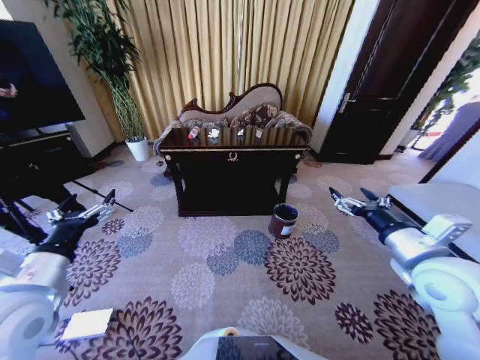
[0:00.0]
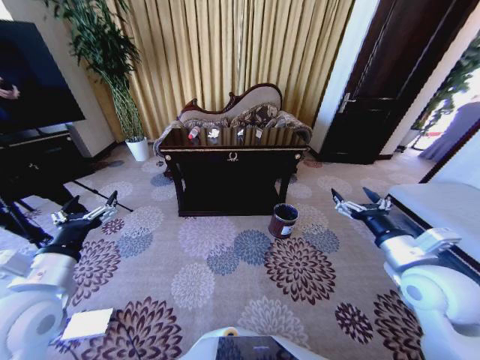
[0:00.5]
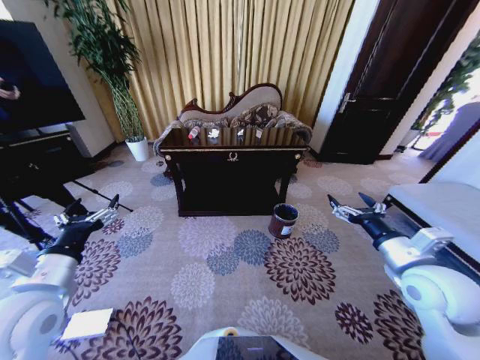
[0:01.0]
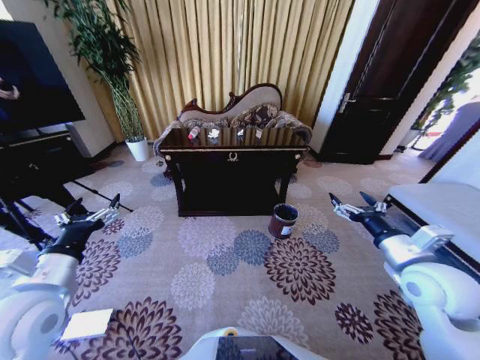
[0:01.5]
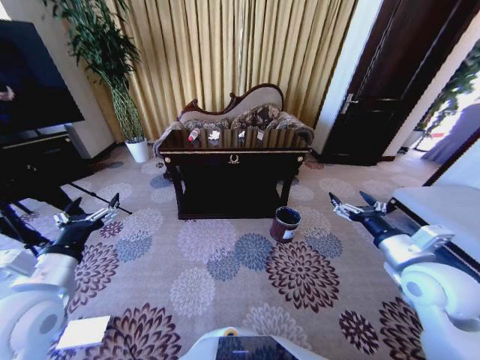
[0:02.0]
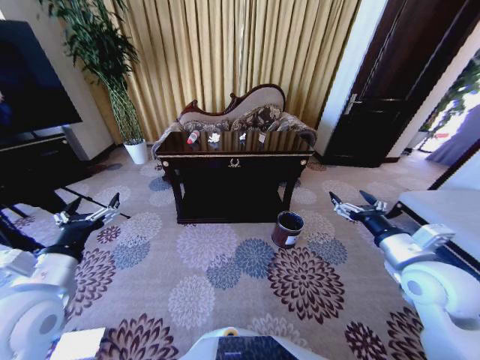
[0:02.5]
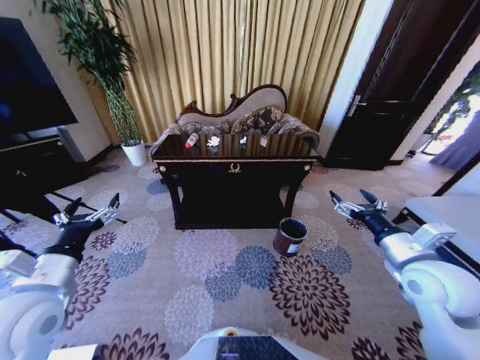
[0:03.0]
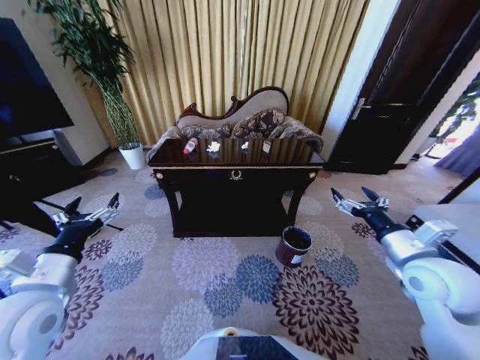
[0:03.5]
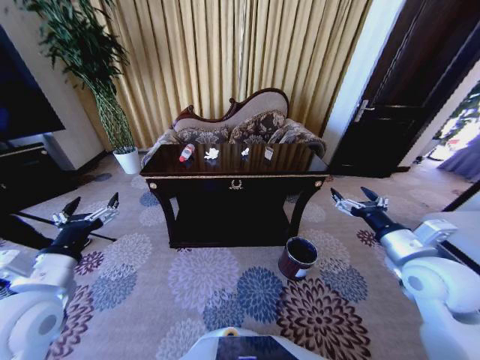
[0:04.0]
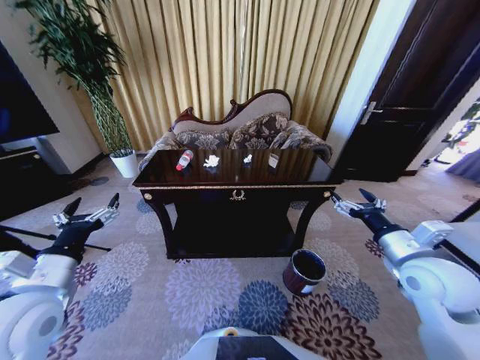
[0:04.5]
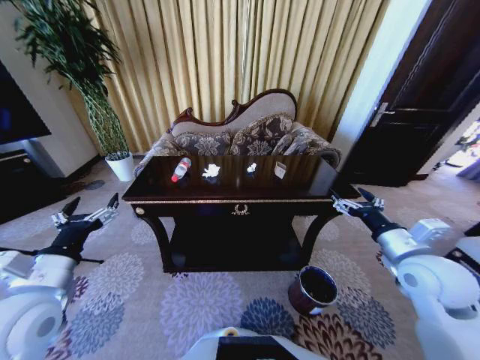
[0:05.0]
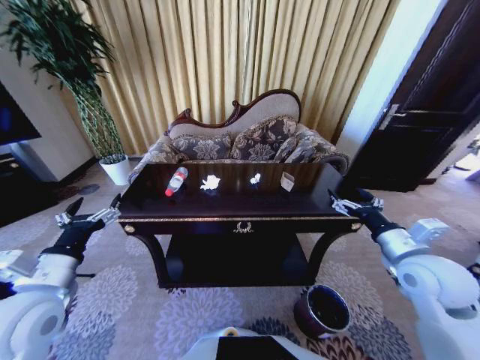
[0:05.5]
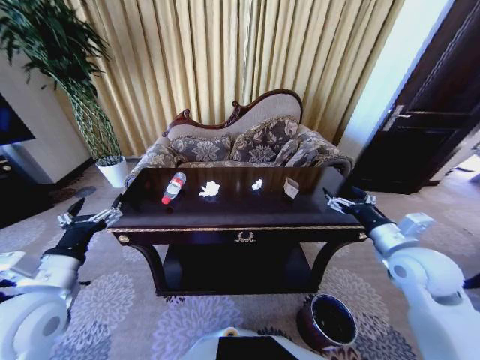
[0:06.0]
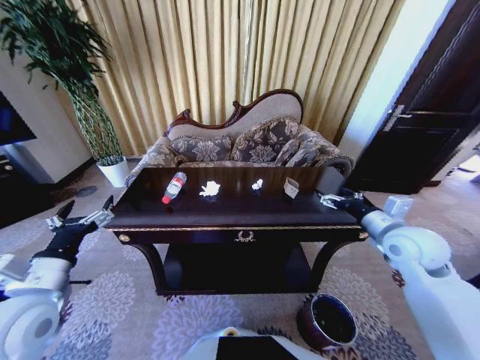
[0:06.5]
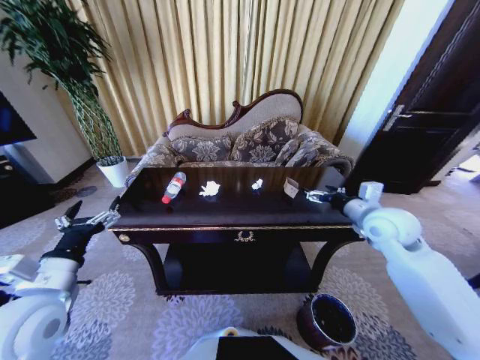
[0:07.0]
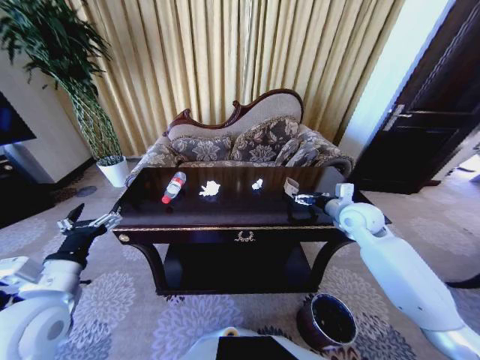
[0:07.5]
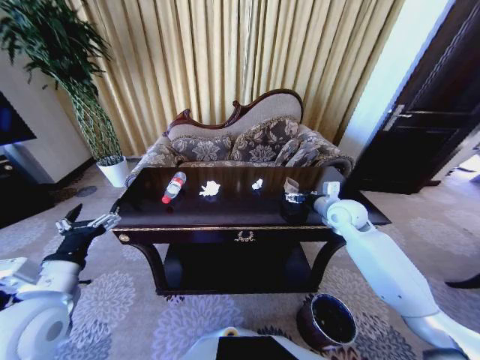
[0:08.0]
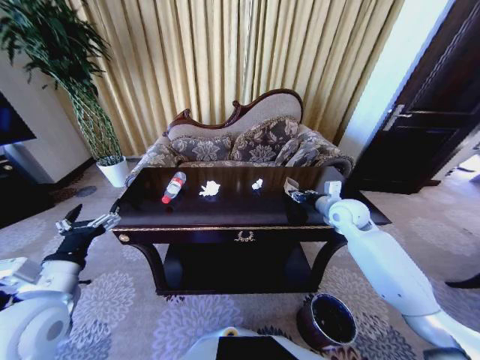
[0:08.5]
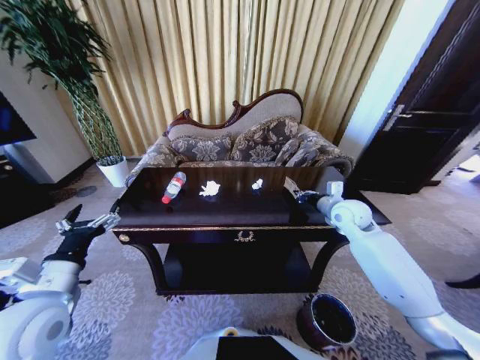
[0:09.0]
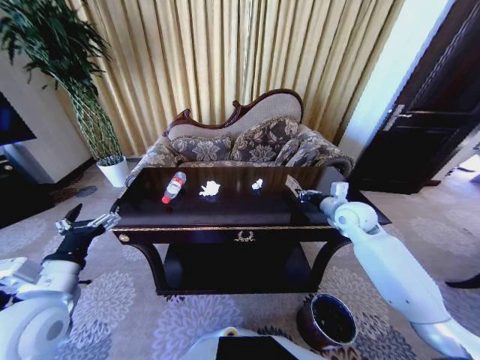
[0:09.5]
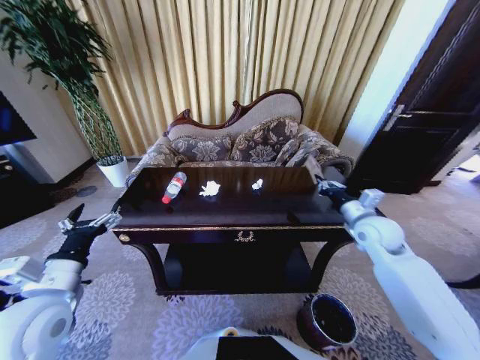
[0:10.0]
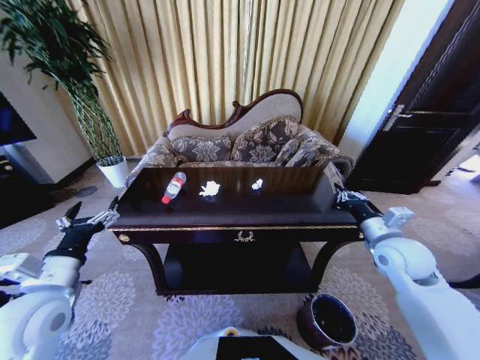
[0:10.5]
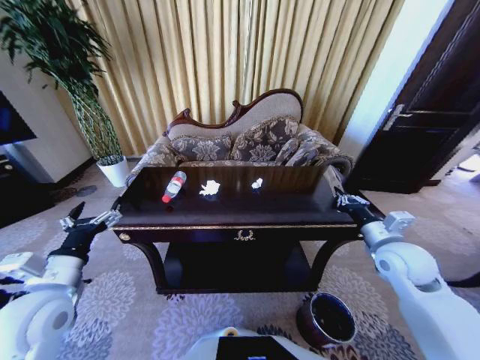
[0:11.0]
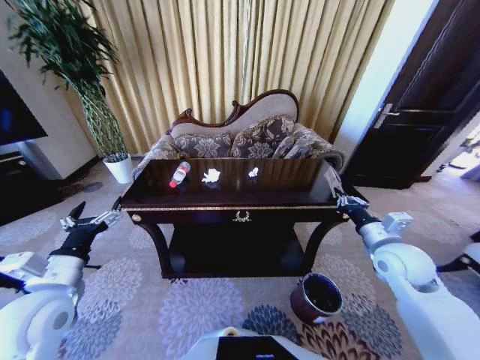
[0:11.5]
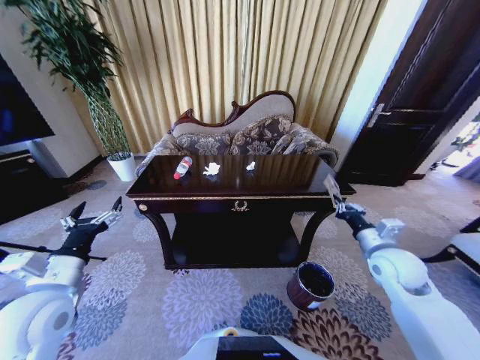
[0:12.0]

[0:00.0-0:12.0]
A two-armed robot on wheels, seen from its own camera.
Task of the whole recording: Move to the front of the table and place the trash on the table into the trash bin.
0:06.0 to 0:08.0: The right gripper moves forward, approximately 15 cm.
0:08.0 to 0:10.0: The right gripper shifts about 5 cm backward, and closes its fingers.
0:10.0 to 0:12.0: The right gripper moves backward, approximately 10 cm.

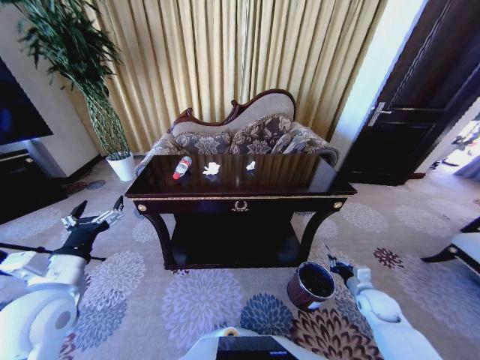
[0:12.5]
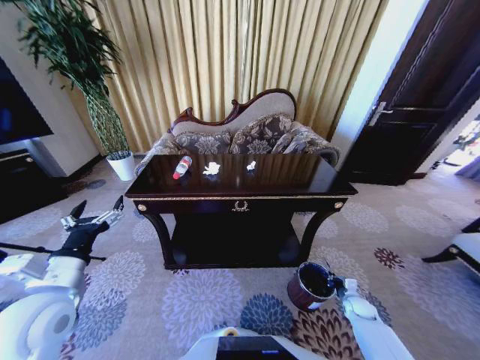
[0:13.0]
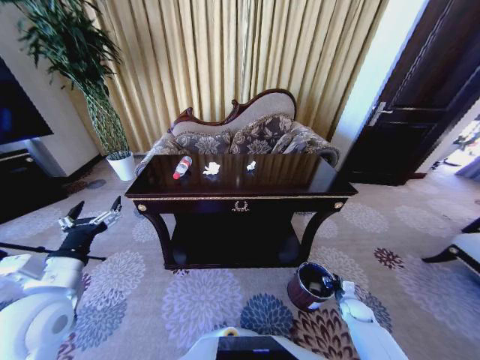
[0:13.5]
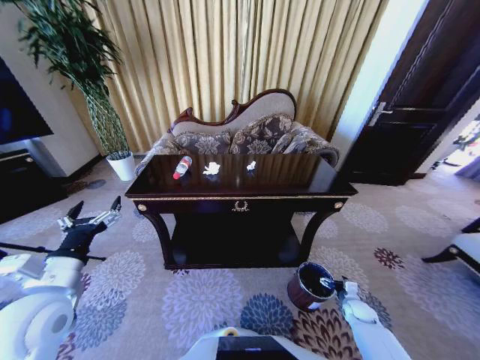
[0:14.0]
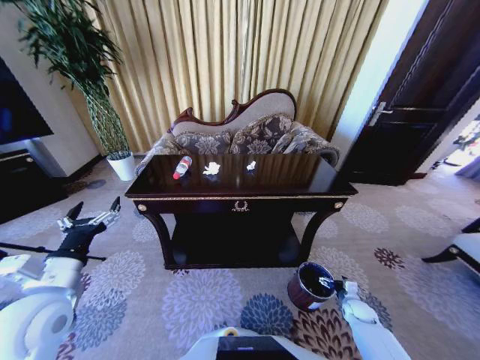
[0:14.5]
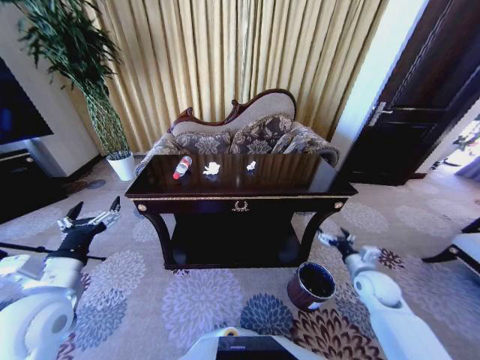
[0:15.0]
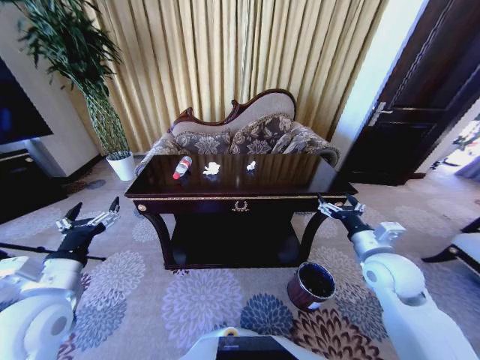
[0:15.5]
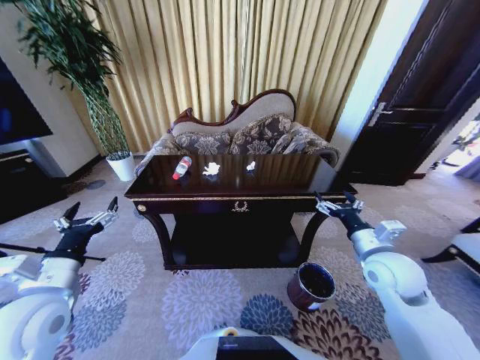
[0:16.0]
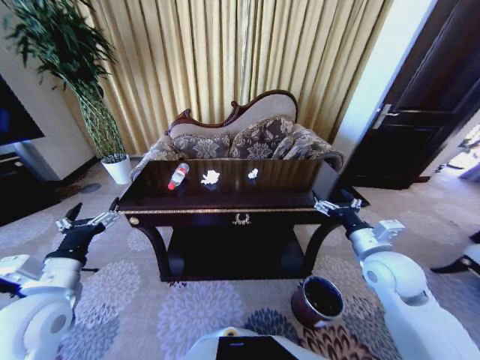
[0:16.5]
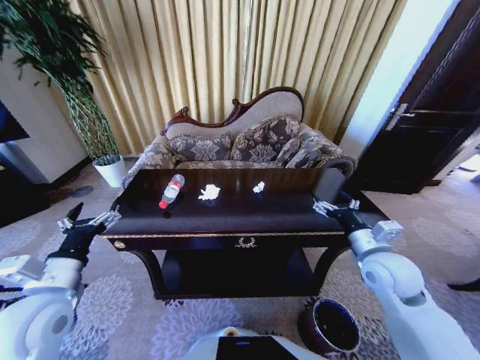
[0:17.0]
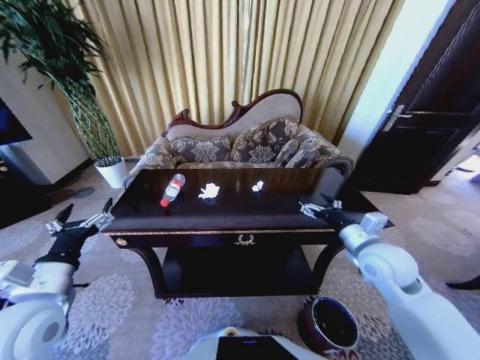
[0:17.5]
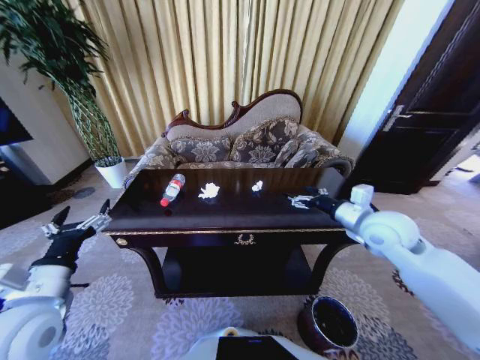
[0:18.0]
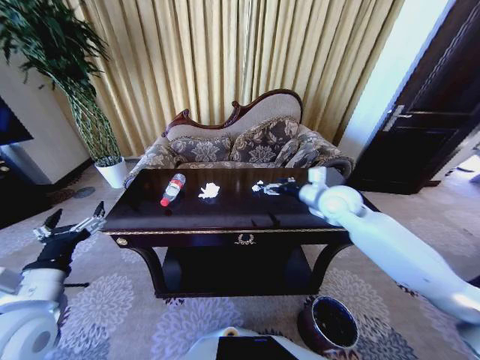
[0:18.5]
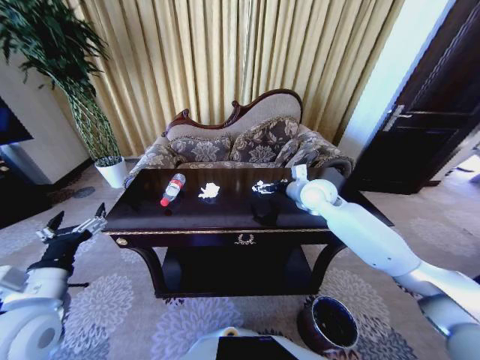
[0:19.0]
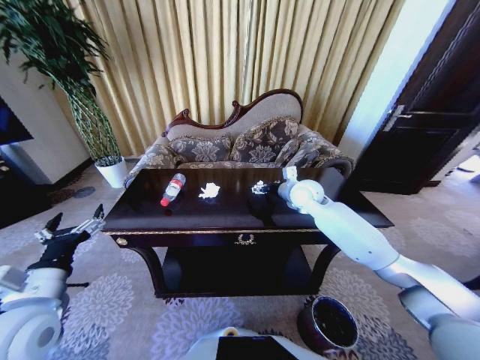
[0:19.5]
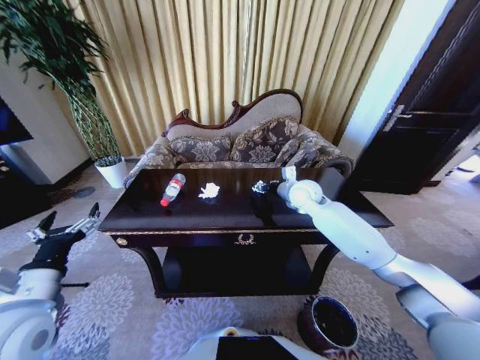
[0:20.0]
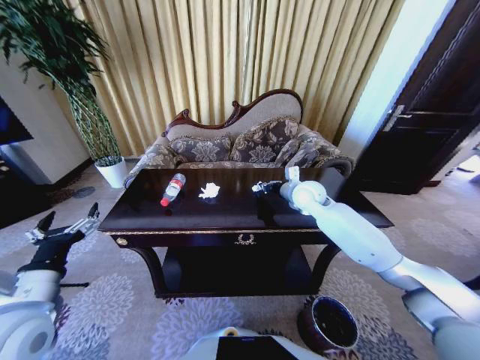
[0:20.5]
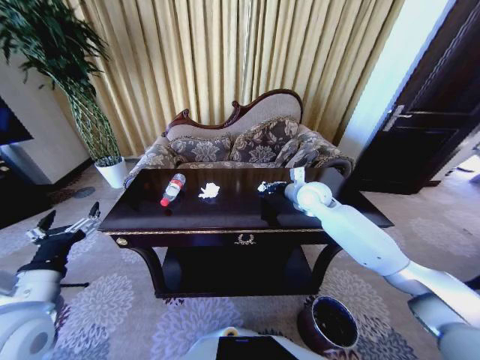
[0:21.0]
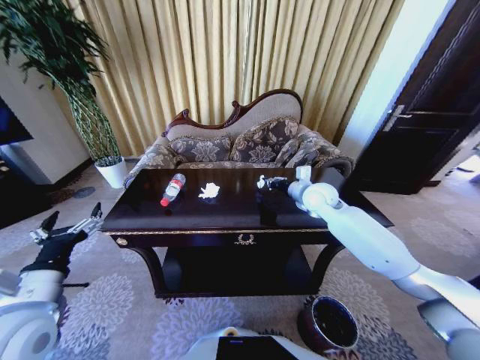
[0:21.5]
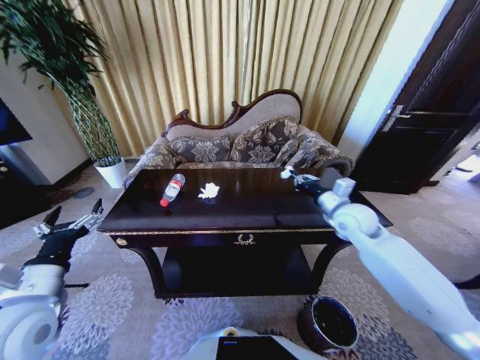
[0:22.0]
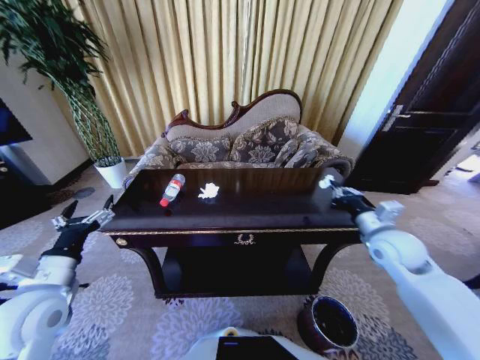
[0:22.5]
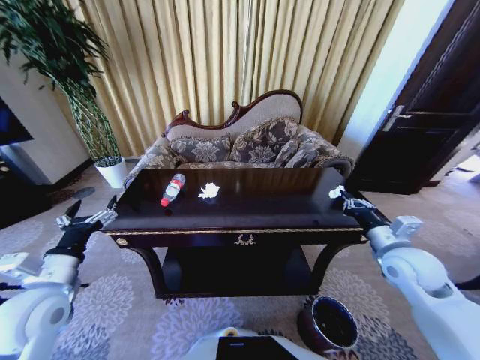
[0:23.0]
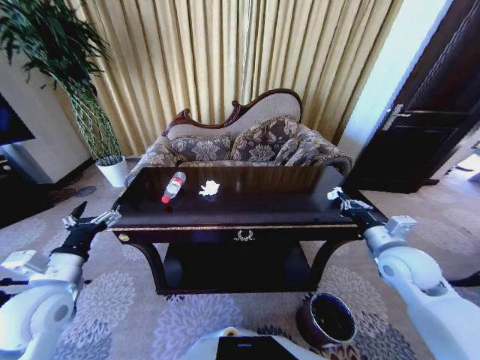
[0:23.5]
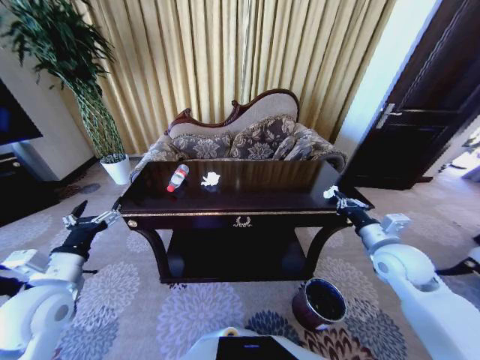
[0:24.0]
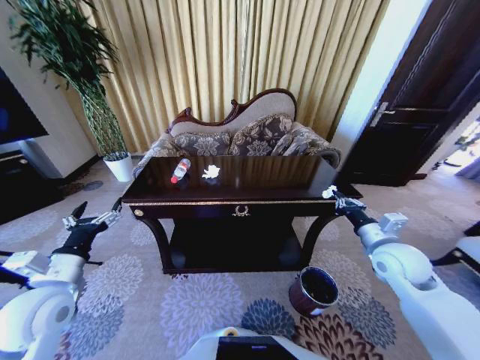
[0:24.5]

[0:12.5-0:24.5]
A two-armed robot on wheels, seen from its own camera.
Task of the whole recording: Move to the front of the table and place the trash on the table into the trash bin.
0:12.5 to 0:14.5: The right gripper shifts about 10 cm downward, and opens.
0:14.5 to 0:16.5: The right gripper heads upward, covering some 35 cm.
0:16.5 to 0:18.5: The right gripper goes roughly 15 cm forward.
0:18.5 to 0:20.5: The right gripper goes roughly 5 cm forward, and closes up.
0:20.5 to 0:22.5: The right gripper travels backward and to the right by roughly 25 cm.

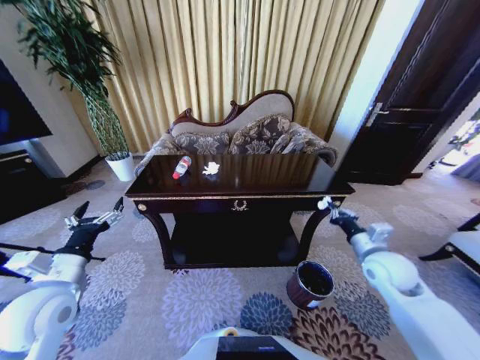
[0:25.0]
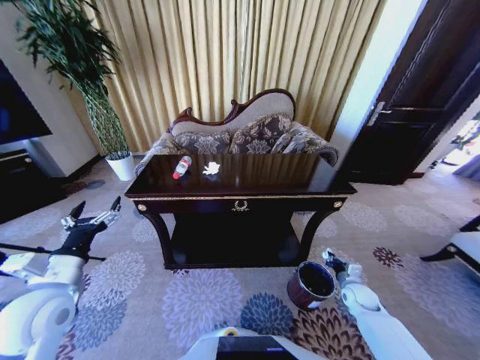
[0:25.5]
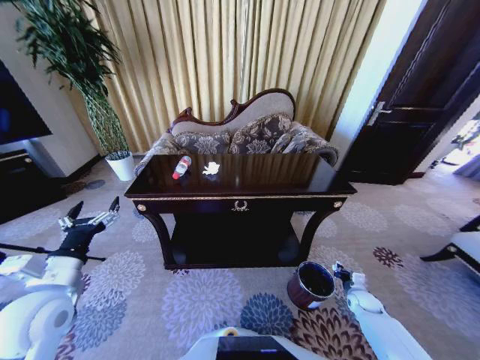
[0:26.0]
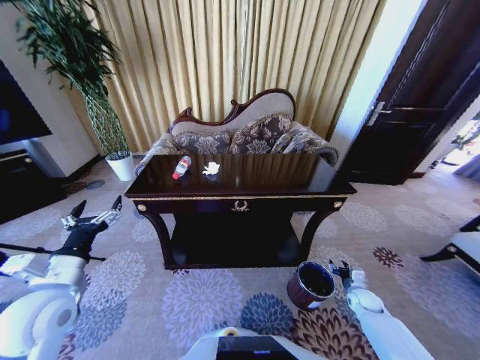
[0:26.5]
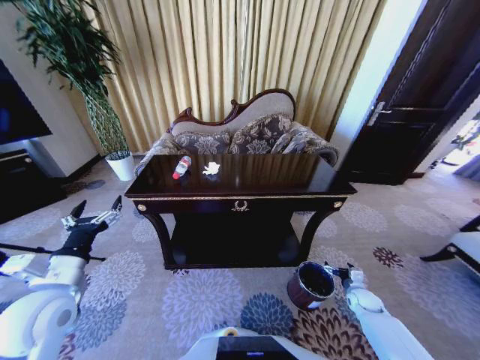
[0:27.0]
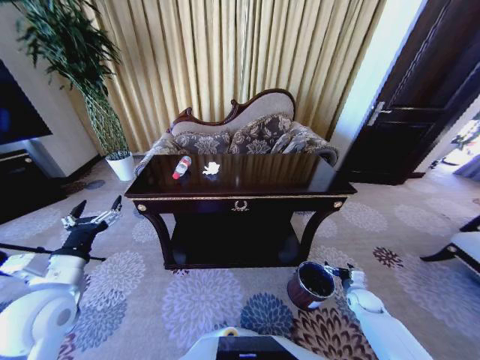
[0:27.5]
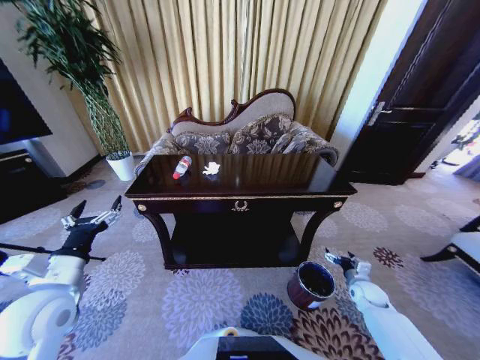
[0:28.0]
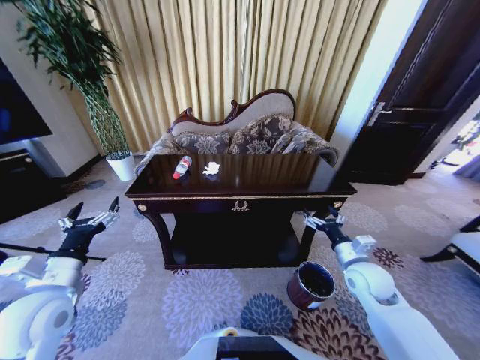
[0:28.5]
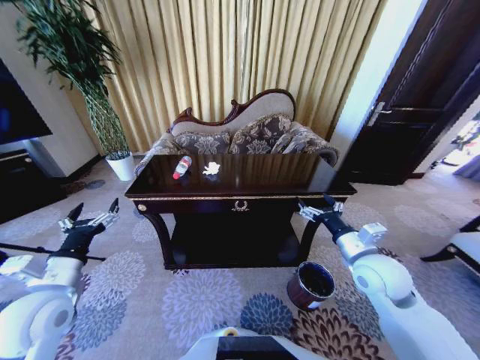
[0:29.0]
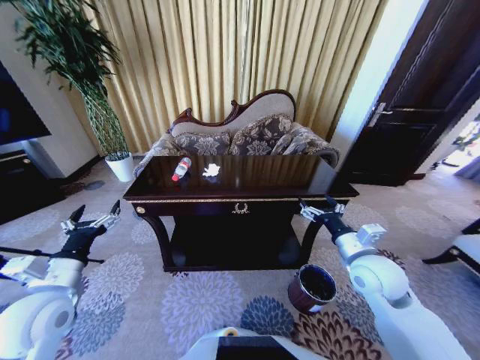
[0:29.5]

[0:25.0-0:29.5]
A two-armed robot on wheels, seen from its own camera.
Task of the whole recording: Move to the front of the table and place the trash on the table into the trash bin.
0:25.0 to 0:27.0: The right gripper is displaced downward by approximately 25 cm, and opens its fingers.
0:27.0 to 0:29.5: The right gripper is displaced upward and to the left by some 35 cm.
